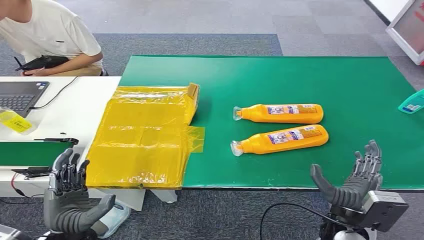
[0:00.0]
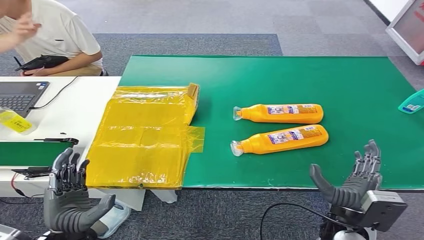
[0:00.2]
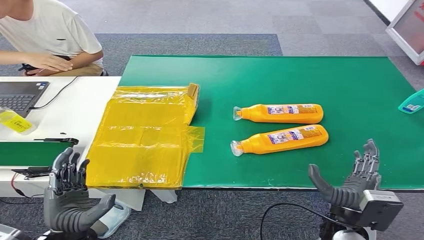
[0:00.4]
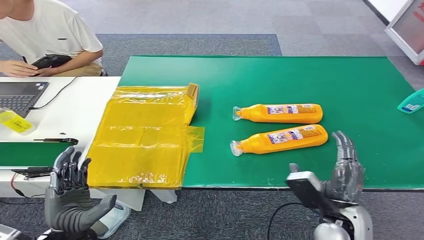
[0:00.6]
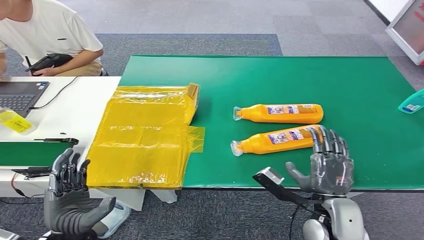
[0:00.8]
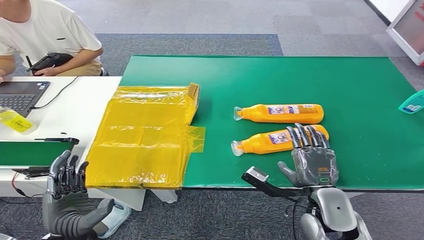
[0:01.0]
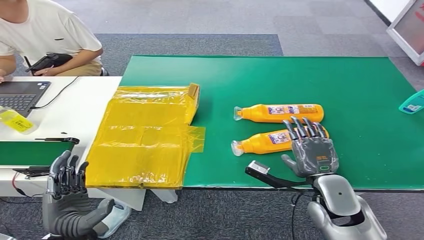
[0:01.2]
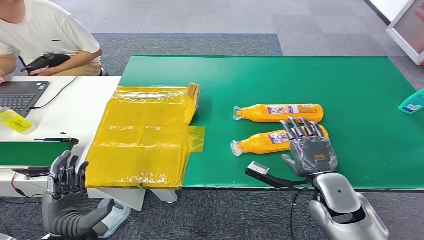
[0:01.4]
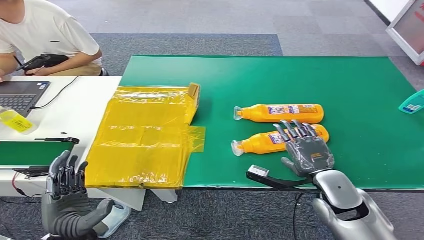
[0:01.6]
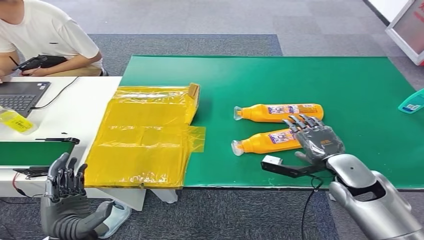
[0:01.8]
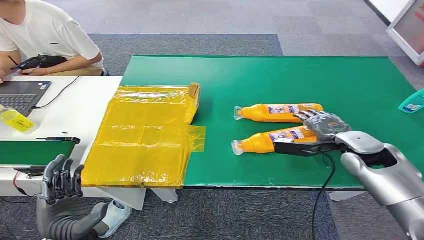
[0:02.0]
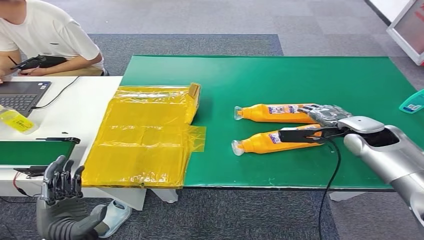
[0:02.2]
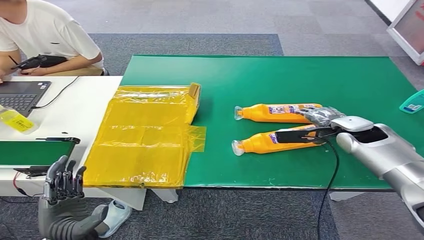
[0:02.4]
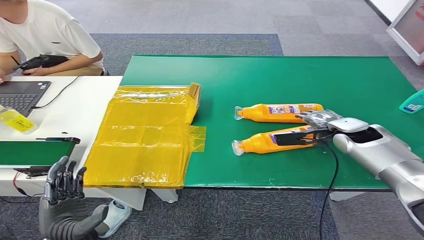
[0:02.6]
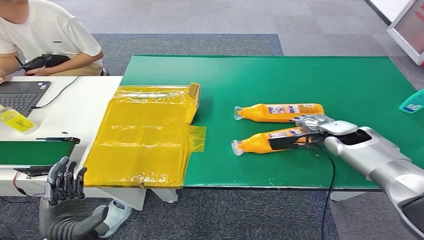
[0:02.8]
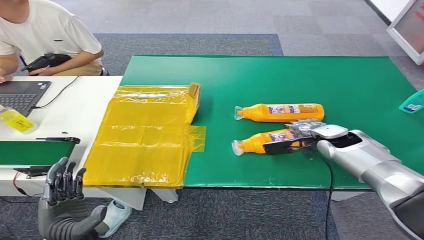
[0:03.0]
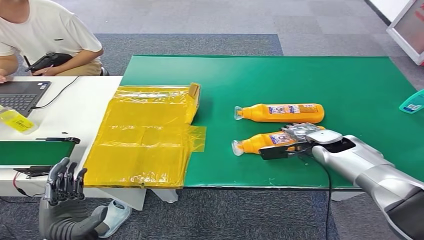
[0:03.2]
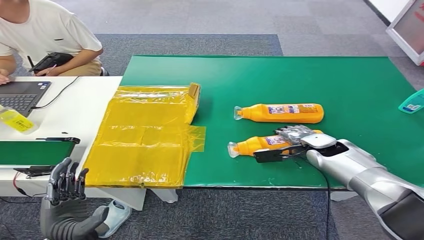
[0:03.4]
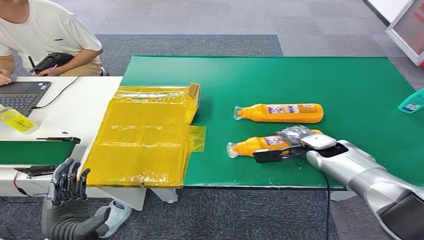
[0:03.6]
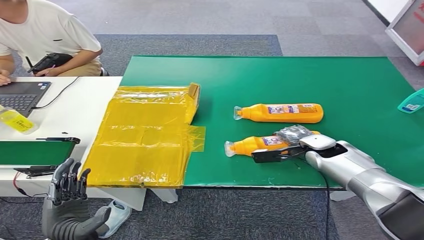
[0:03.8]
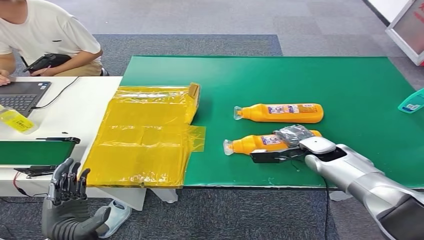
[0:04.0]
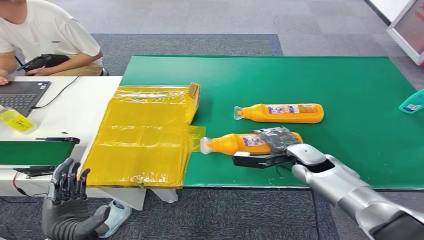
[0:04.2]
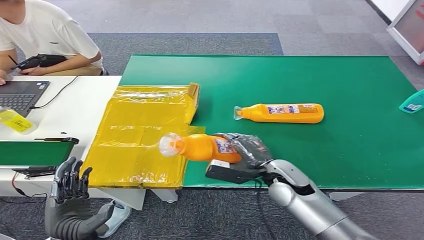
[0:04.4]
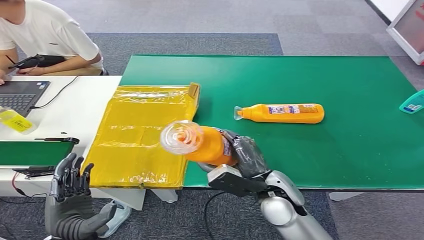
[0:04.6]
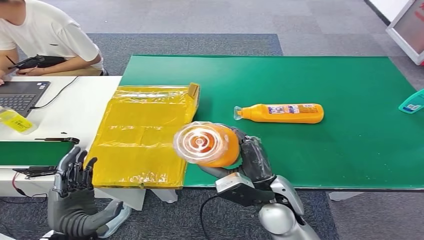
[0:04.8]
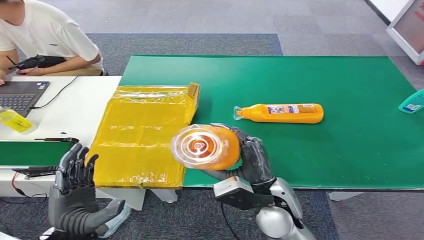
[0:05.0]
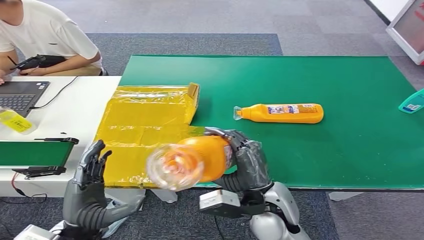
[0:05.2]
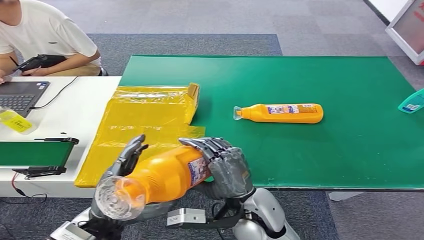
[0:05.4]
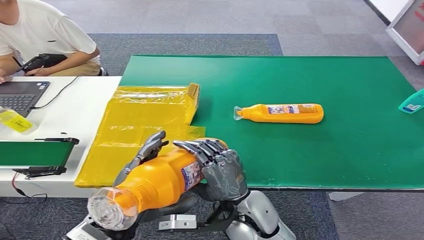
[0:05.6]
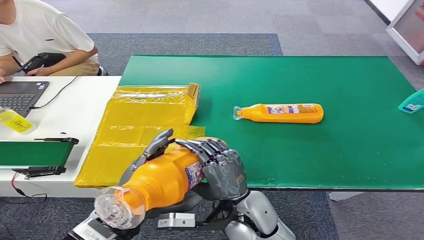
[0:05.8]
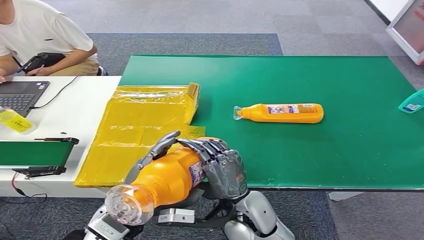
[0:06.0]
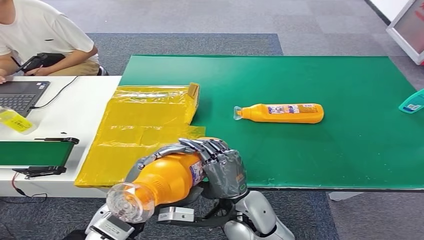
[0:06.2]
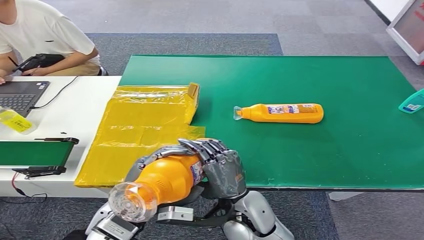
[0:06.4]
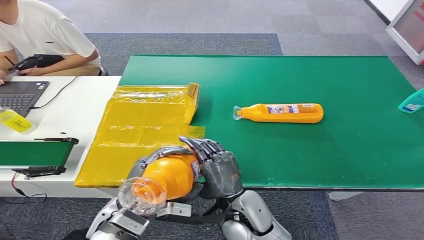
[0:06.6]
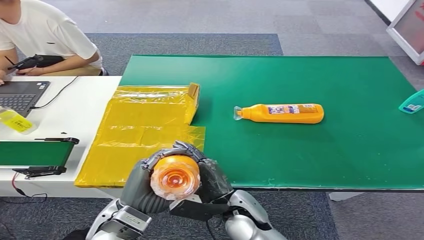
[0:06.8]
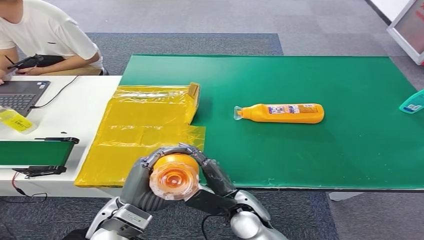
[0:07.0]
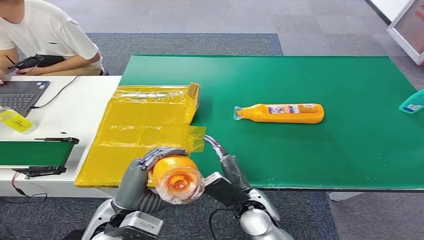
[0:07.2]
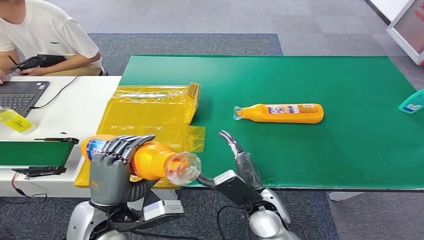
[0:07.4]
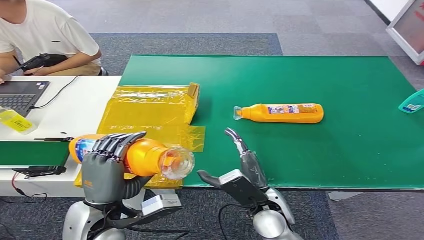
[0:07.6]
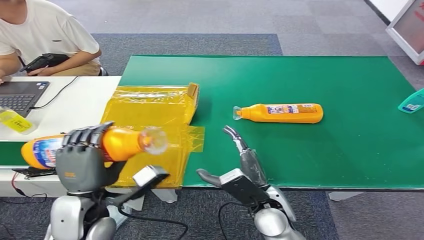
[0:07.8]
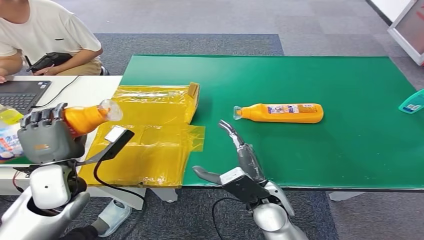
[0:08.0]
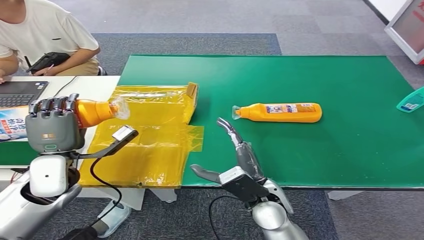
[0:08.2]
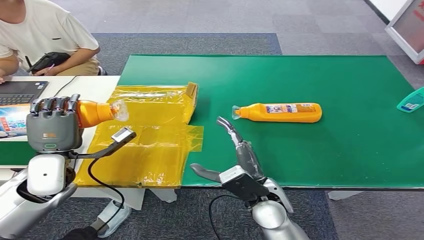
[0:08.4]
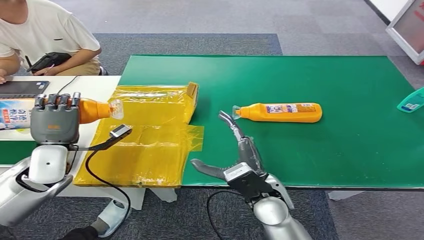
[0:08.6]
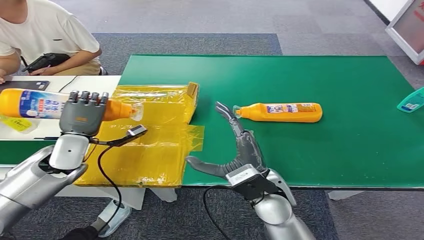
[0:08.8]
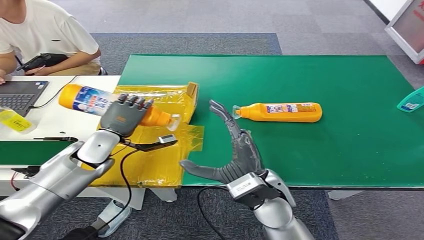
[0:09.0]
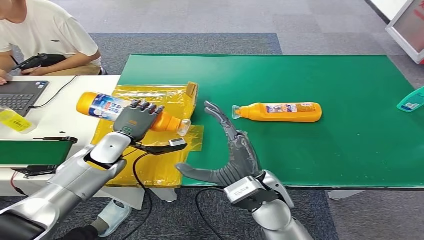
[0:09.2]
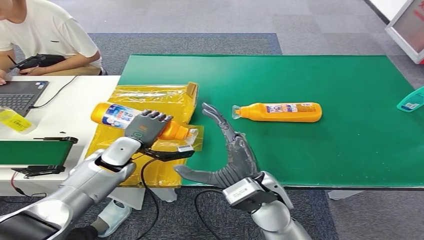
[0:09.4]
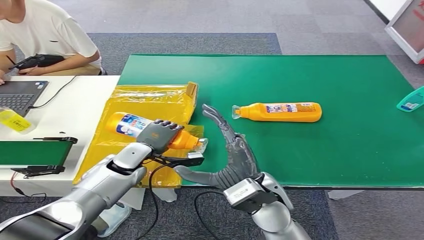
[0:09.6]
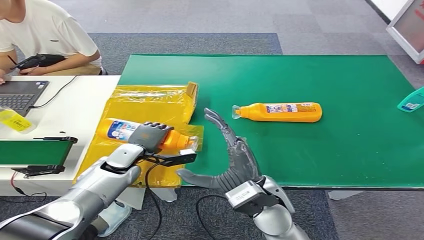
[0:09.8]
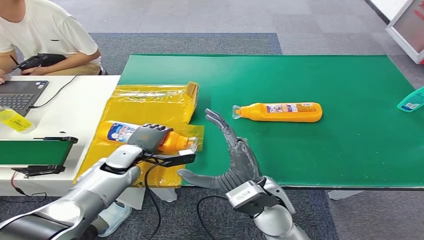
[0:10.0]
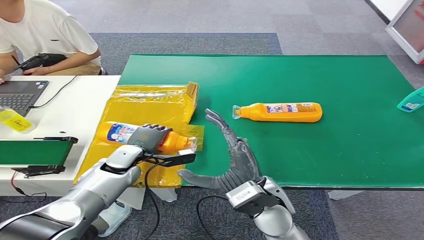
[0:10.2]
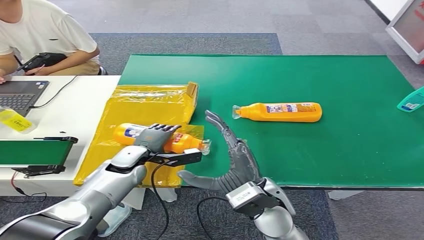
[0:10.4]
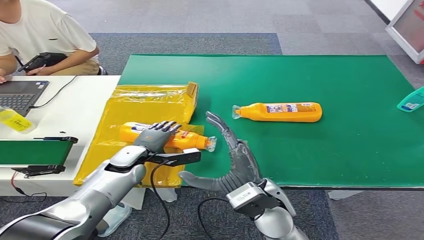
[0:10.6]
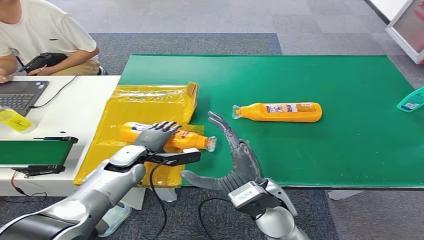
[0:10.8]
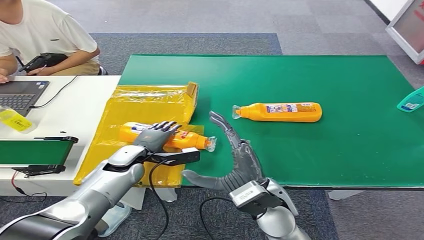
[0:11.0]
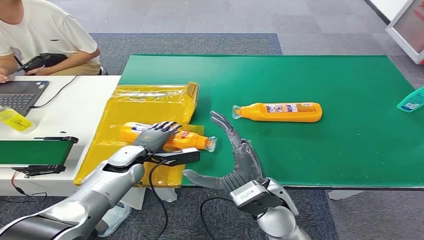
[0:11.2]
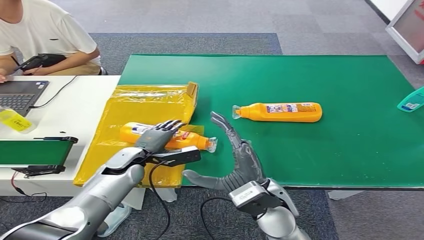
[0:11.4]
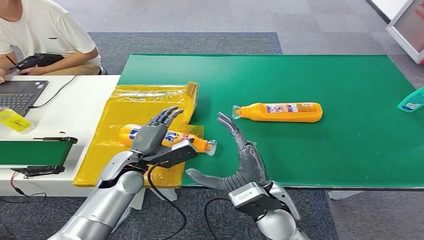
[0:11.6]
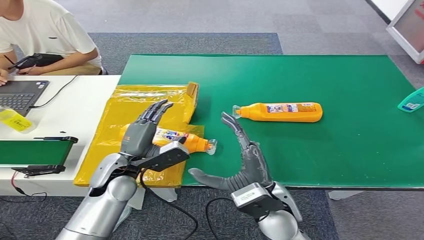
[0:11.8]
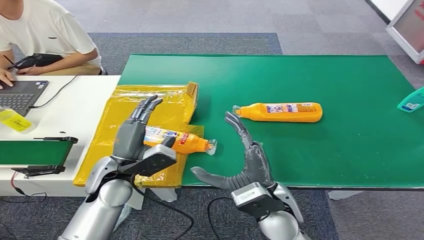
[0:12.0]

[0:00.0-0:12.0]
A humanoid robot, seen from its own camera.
Step, 0:00.0 to 0:04.8: Pick up the bottle from the table.
Step, 0:05.0 to 0:12.0: Turn the bottle to the front side.
0:01.6 to 0:03.0: The right hand moves forward, about 15 cm.
0:03.0 to 0:04.4: The right hand shifts approximately 15 cm to the left and backward.
0:04.4 to 0:06.0: The right hand is displaced to the left and backward by some 15 cm; the left hand moves to the right, upward and forward, approximately 15 cm.
0:06.0 to 0:07.6: The right hand moves to the right, about 5 cm.
0:09.0 to 0:10.4: The left hand is displaced downward and to the right by about 10 cm.
0:10.4 to 0:12.0: The left hand is displaced upward and backward by approximately 10 cm.
